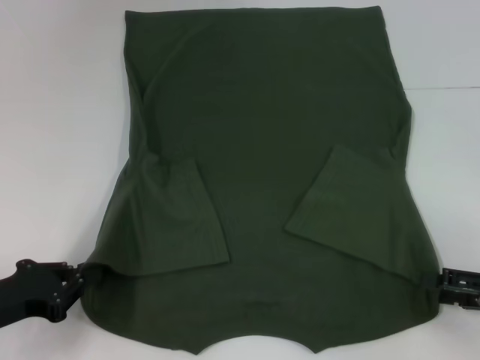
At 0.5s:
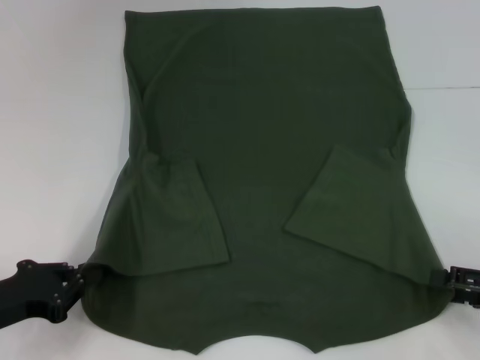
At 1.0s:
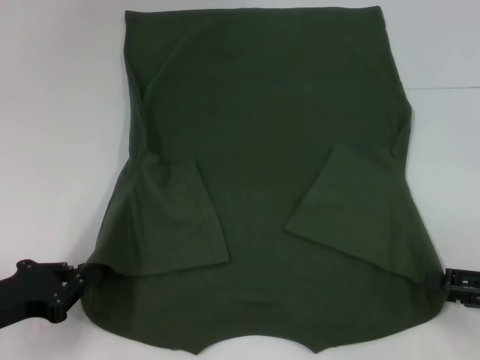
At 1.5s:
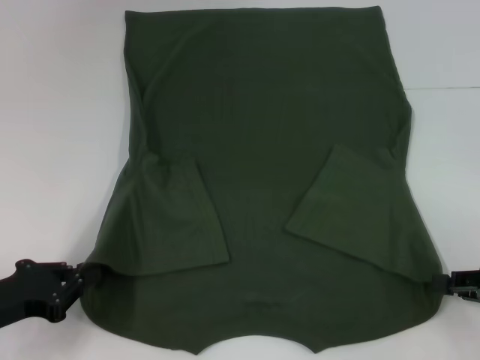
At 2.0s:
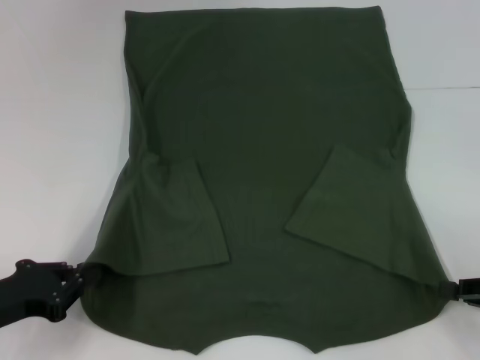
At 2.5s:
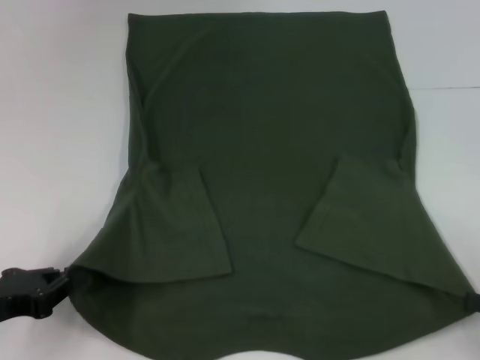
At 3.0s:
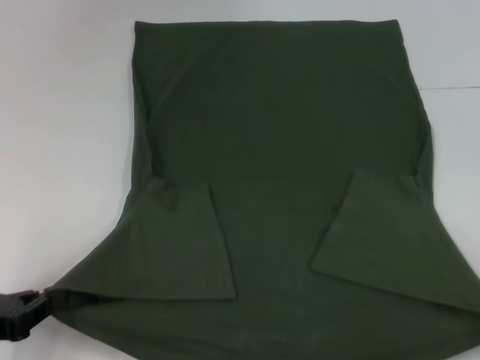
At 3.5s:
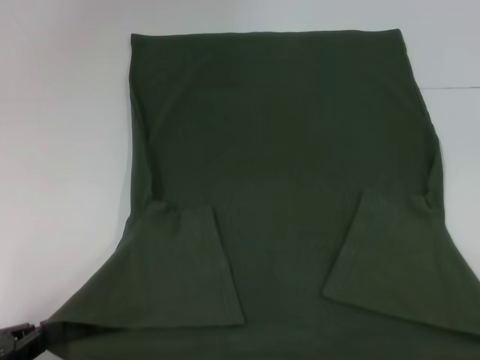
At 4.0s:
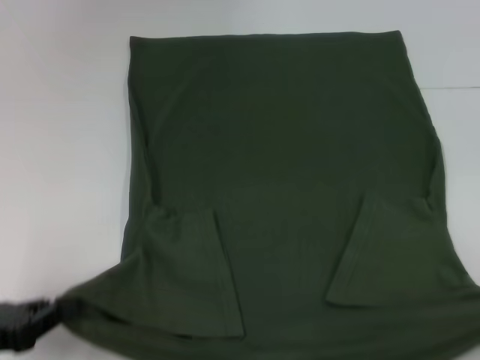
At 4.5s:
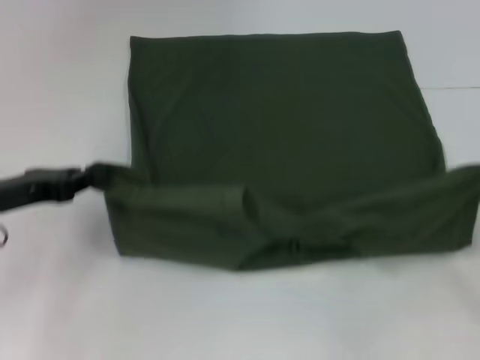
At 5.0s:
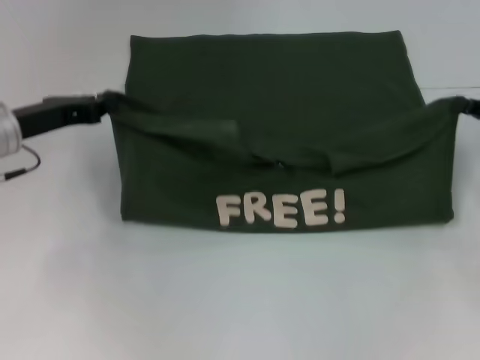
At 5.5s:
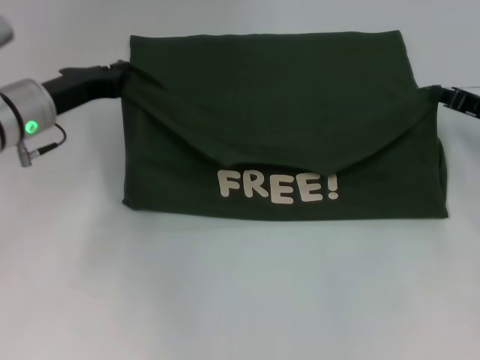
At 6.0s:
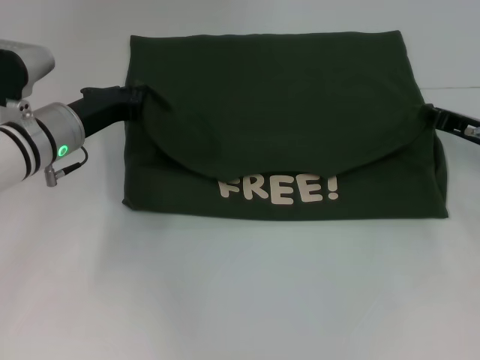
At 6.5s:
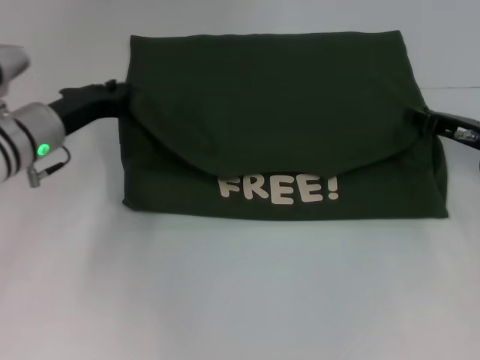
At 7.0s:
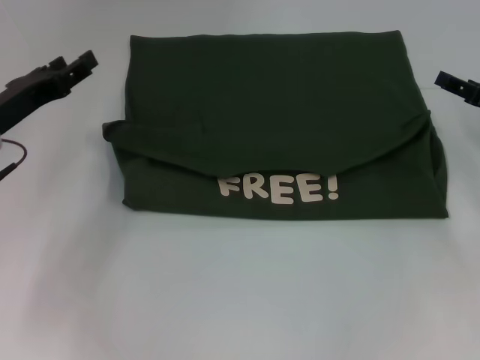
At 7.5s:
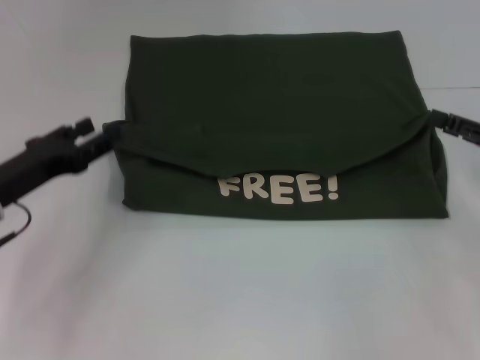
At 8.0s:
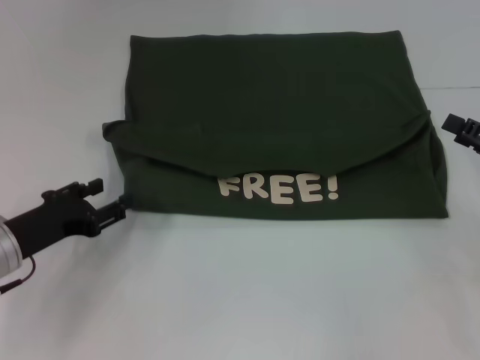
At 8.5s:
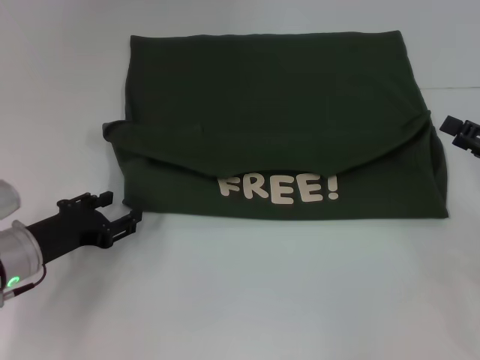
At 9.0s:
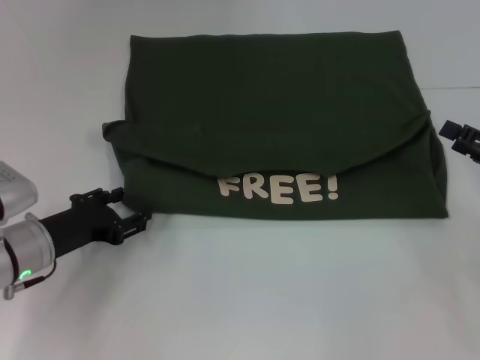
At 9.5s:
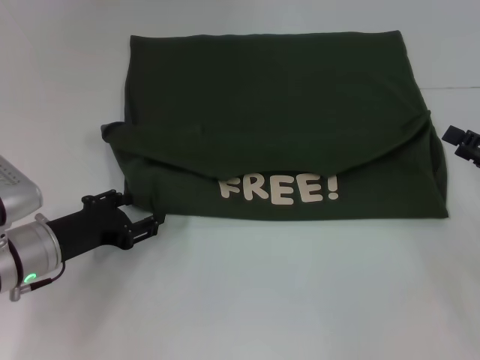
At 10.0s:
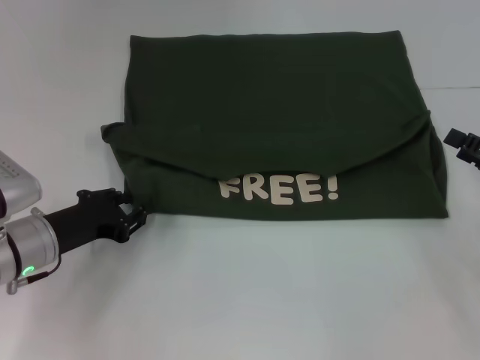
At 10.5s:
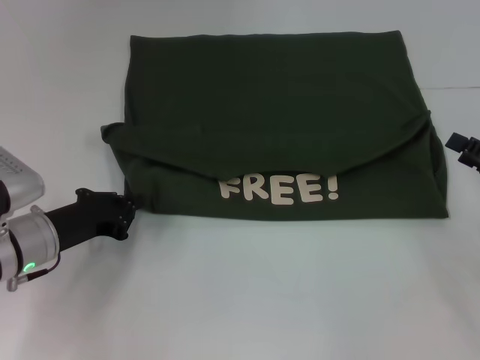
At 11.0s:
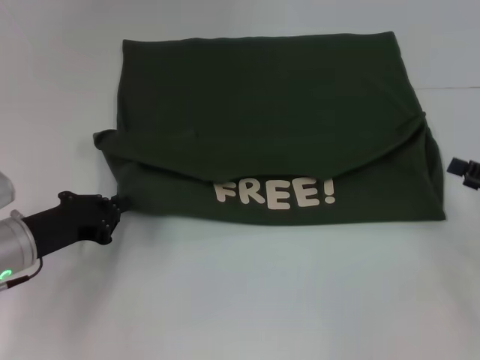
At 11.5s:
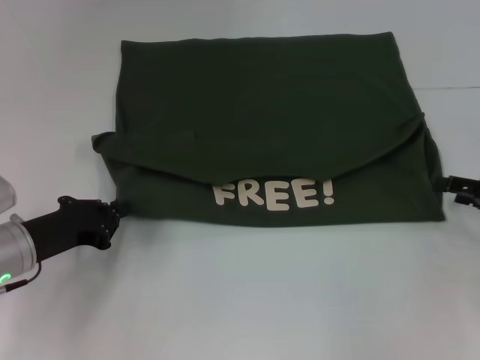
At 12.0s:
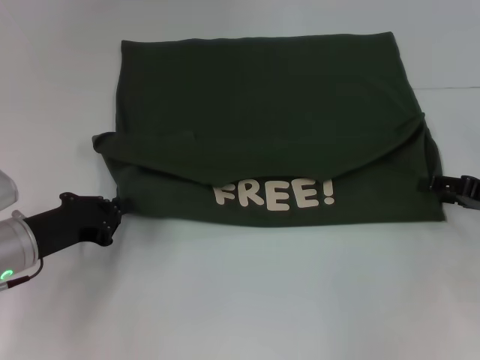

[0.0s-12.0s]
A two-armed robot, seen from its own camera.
Step, 2.5s to 6.5s: Fold the clothes with your left hand.
Step, 2.5s to 6.5s: Fold the clothes with your right hand.
2.0s to 4.0s: The left gripper changes place by some 5 cm. Meanwhile the right gripper moves backward, some 10 cm.
4.0s to 6.0s: The left gripper is displaced forward and to the right by about 25 cm, while the right gripper travels forward and to the left by roughly 25 cm.
6.0s to 8.0s: The right gripper is displaced backward by approximately 10 cm, and opens its fingers; the left gripper goes some 15 cm backward and to the left, and opens up.
8.0s to 10.0s: The grippers stay close to where they were, moving slightly.
10.0s to 12.0s: The left gripper closes.

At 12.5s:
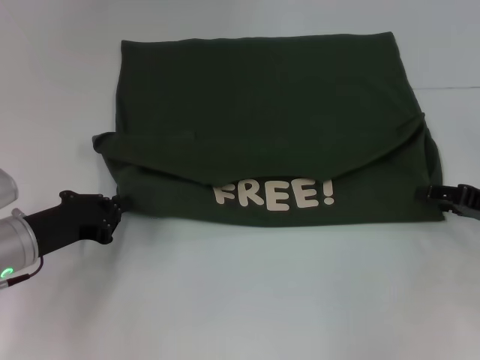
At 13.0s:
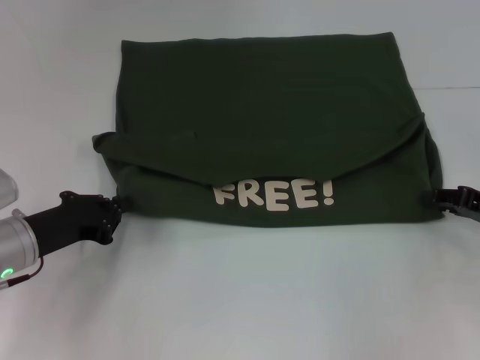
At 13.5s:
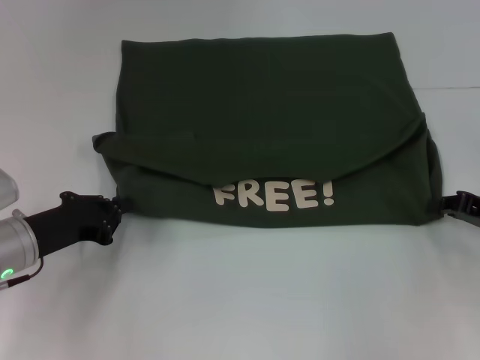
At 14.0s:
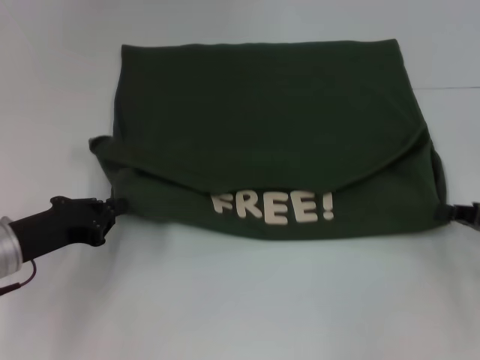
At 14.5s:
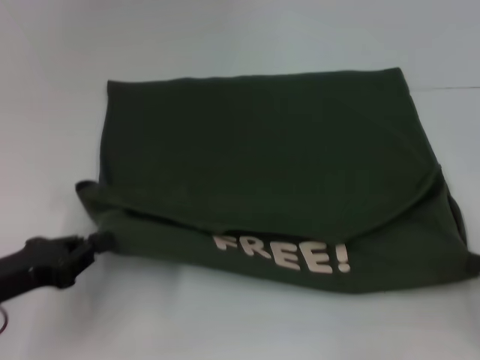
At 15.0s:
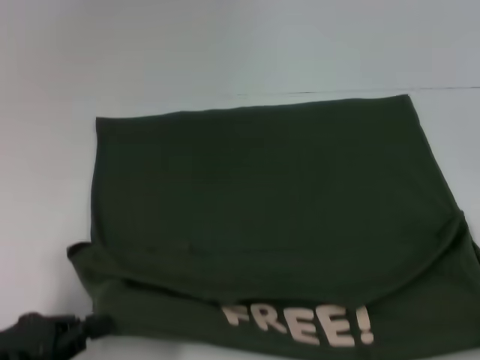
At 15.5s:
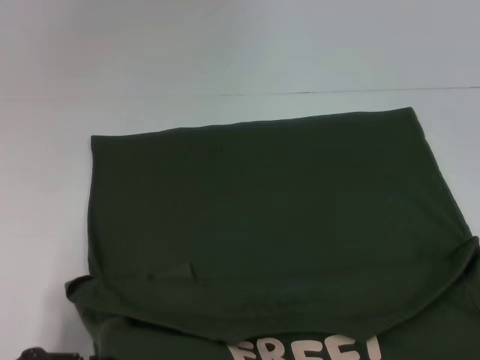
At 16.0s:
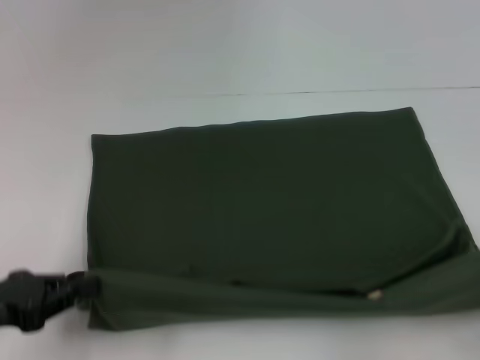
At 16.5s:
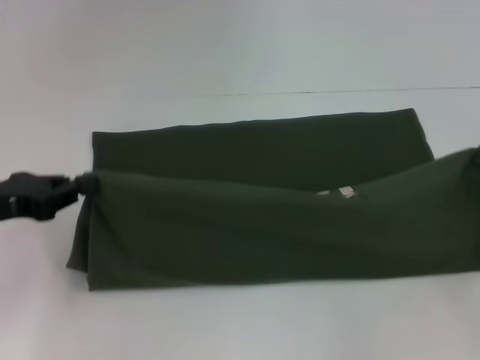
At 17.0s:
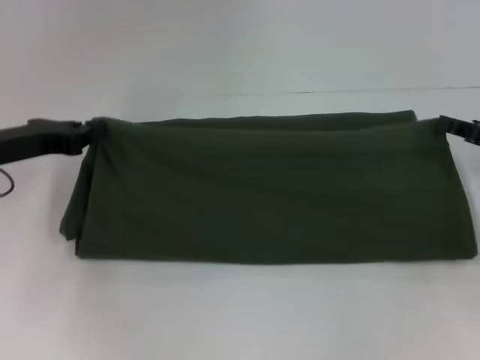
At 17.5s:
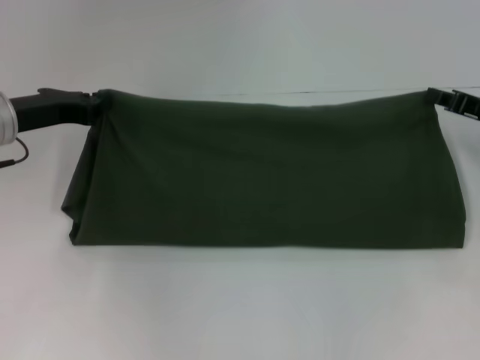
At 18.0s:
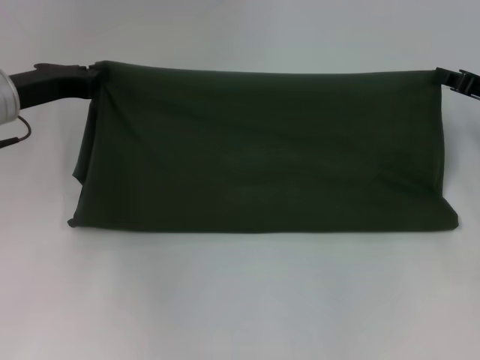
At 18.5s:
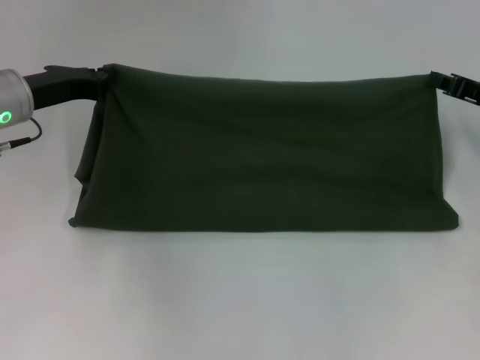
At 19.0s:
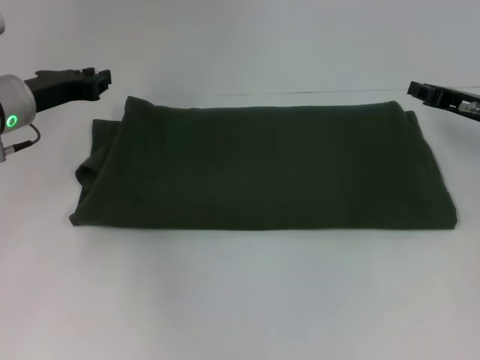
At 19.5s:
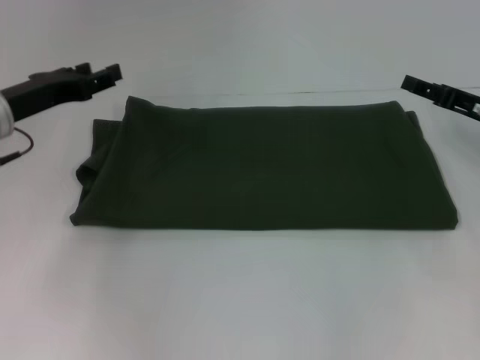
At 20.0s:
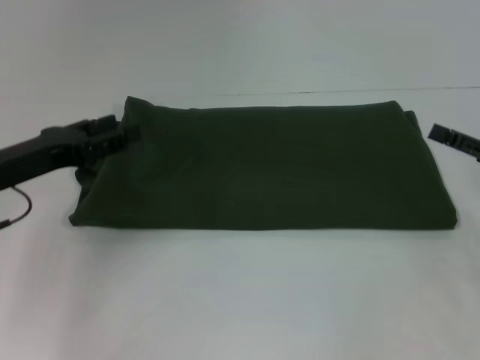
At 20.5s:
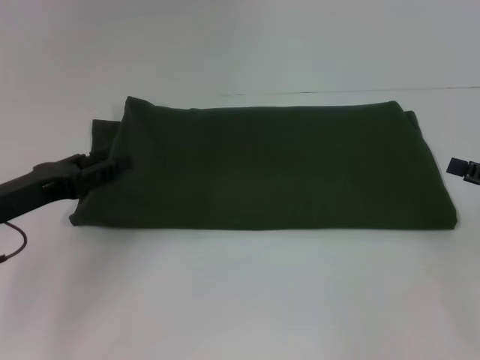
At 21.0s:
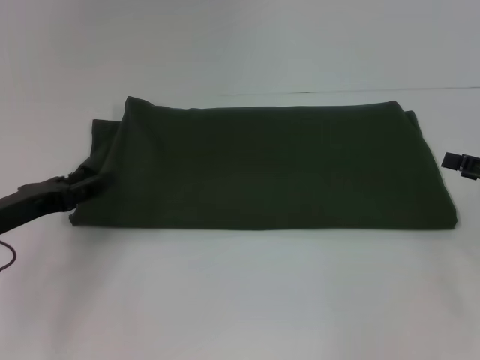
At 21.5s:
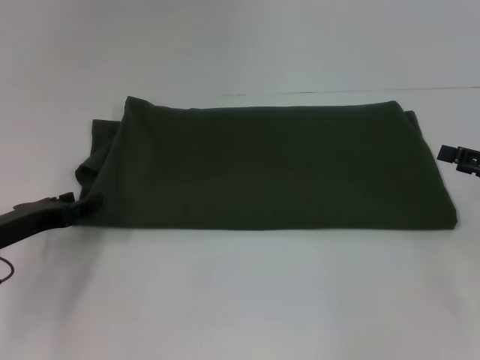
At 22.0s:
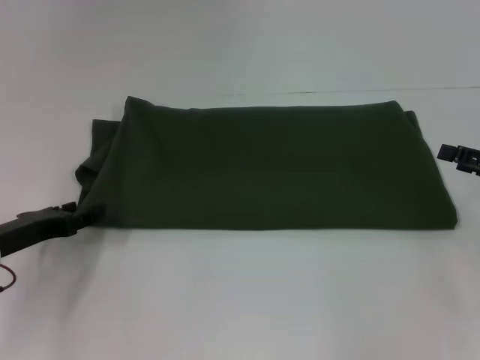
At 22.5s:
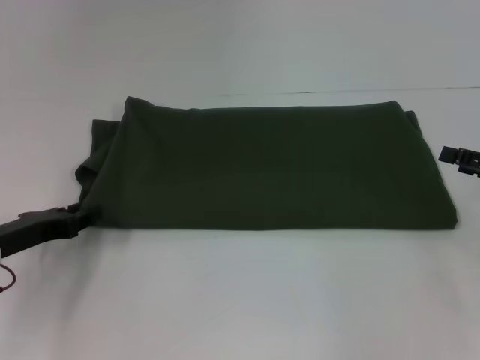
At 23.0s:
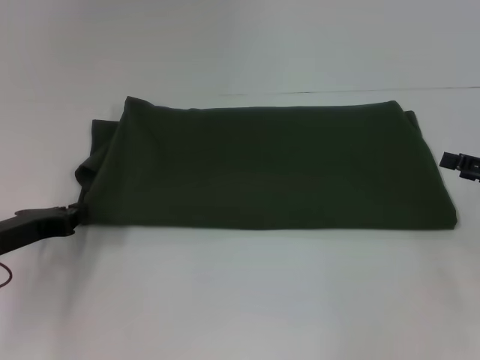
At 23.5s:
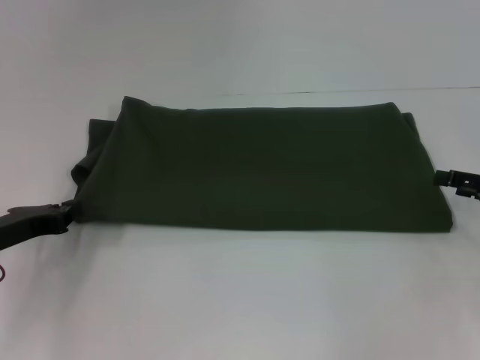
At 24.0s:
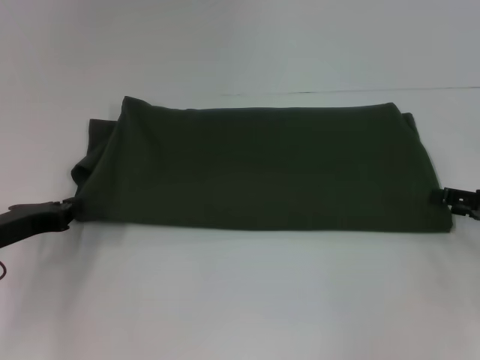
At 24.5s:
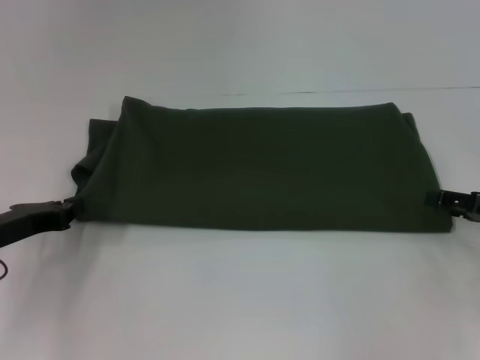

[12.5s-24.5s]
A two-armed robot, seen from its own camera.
Step, 12.5s to 15.0s: Pull the clothes with your left hand.
Step, 12.5s to 15.0s: Pull the clothes with your right hand.
Step, 15.5s to 19.0s: Fold the clothes with your right hand.
12.5s to 14.5s: Both grippers travel together backward, some 10 cm. The right gripper closes.
14.5s to 16.5s: The left gripper shifts some 10 cm forward and upward; the right gripper goes backward and returns, roughly 10 cm each way.
16.5s to 18.5s: The left gripper travels forward and to the right by approximately 15 cm, while the right gripper shifts roughly 15 cm forward and to the left.
18.5s to 20.5s: The left gripper moves backward, roughly 10 cm, and opens its fingers. The right gripper goes some 10 cm backward and to the right, and opens up.
20.5s to 22.5s: The left gripper travels downward by approximately 5 cm.
22.5s to 24.5s: The left gripper closes its fingers.

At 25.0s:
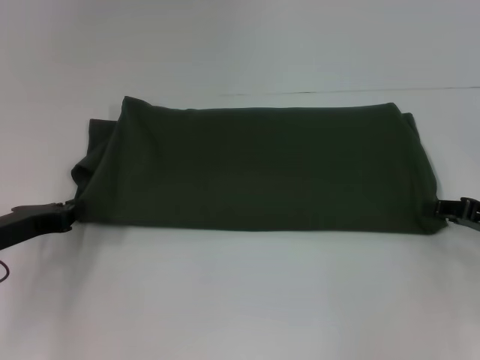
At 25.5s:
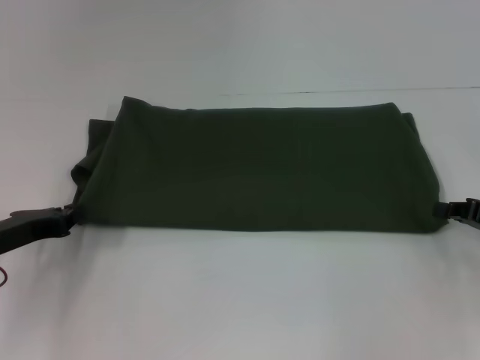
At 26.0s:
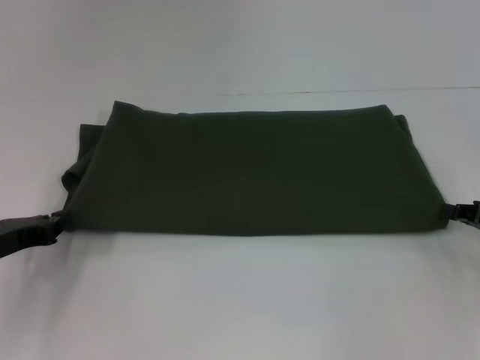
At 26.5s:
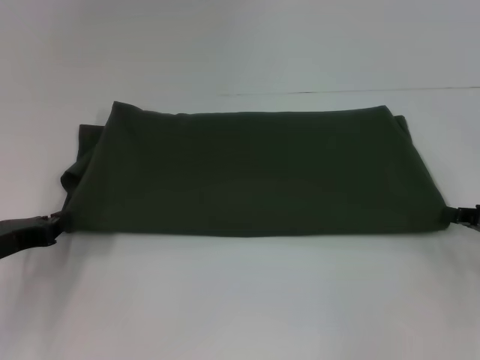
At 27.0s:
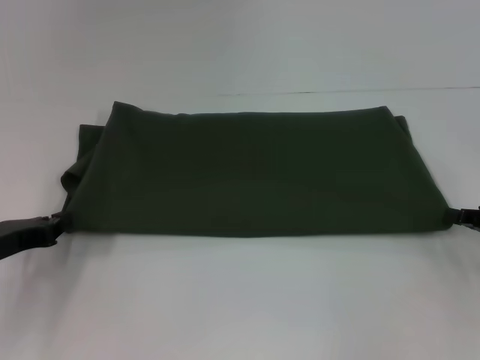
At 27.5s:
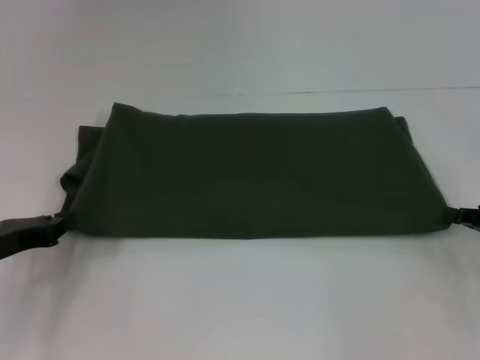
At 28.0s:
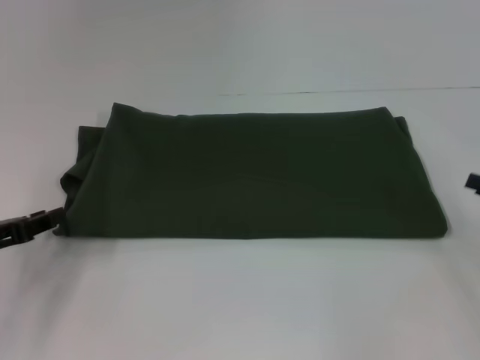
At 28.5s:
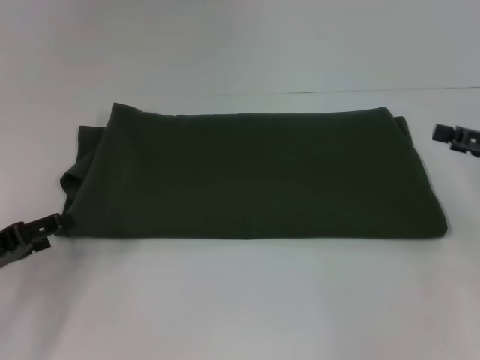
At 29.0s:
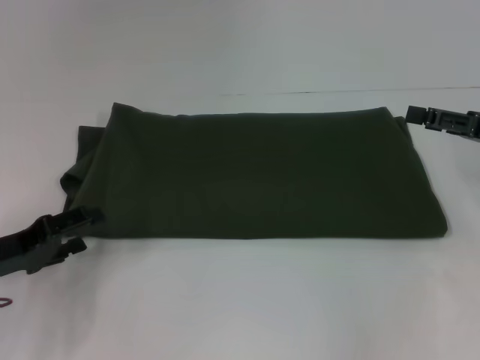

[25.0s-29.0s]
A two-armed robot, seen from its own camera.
25.0s to 27.0s: The right gripper closes.
27.0s to 29.0s: The left gripper opens. The right gripper shifts some 10 cm upward and forward, and opens.
